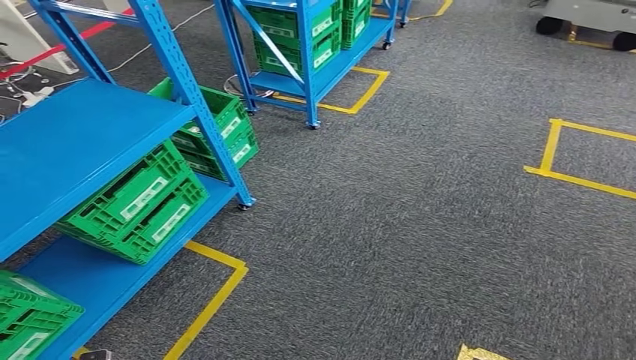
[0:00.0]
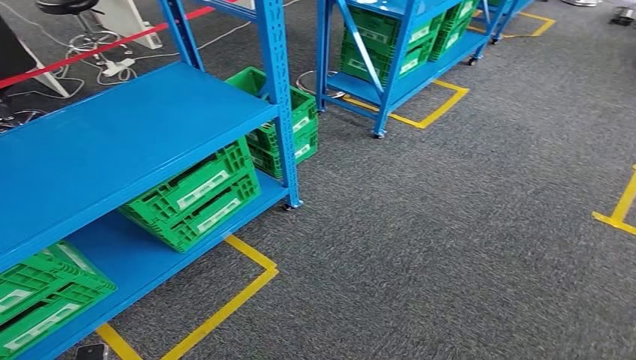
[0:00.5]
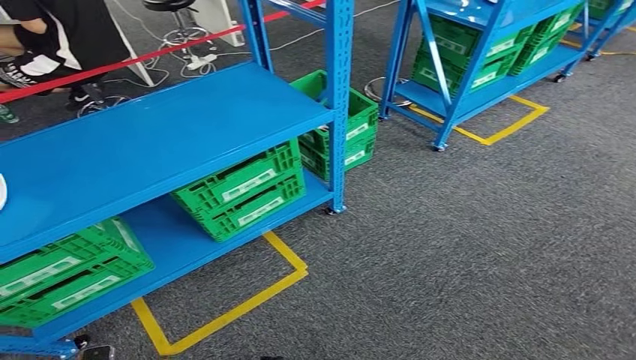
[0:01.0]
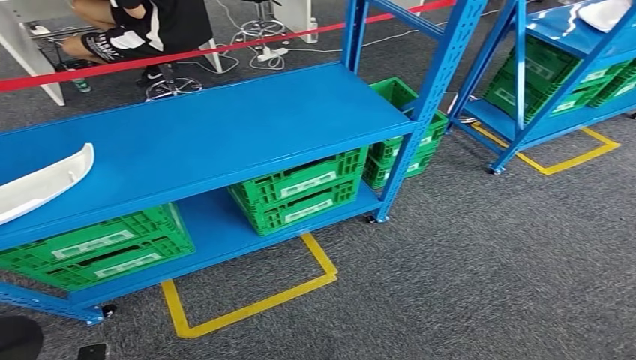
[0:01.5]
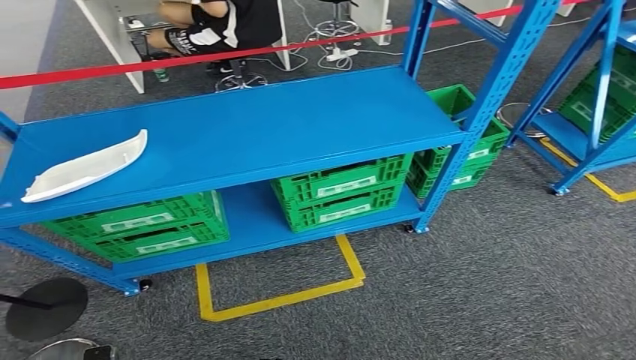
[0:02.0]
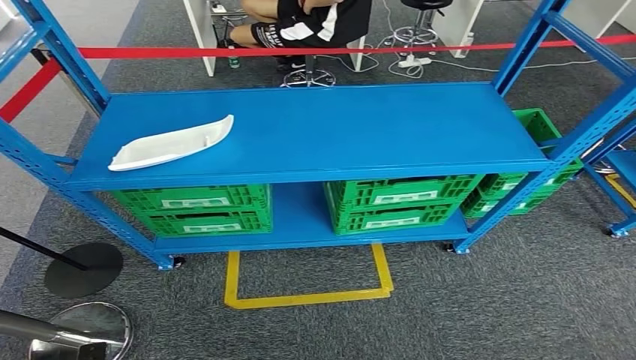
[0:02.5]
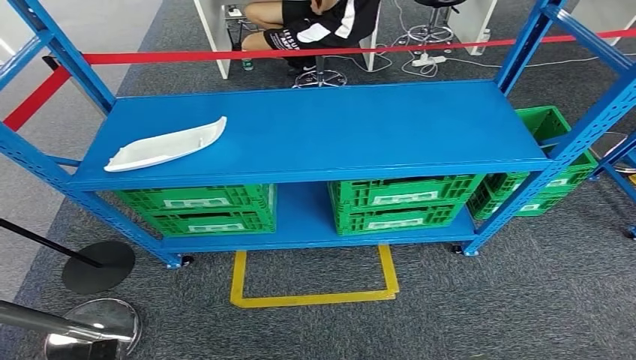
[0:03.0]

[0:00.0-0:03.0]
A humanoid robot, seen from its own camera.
Step, 0:00.0 to 0:02.5: Return to the initial position at the workbench.
